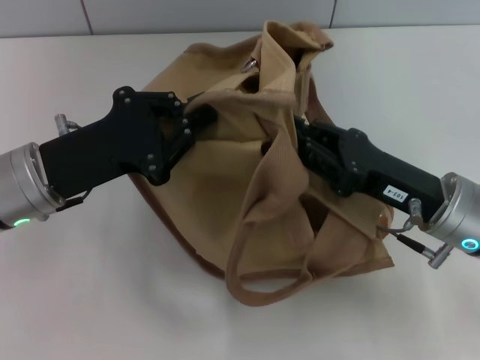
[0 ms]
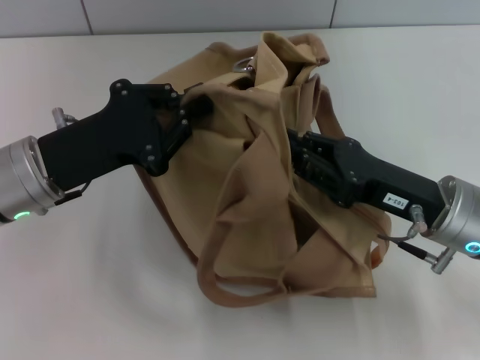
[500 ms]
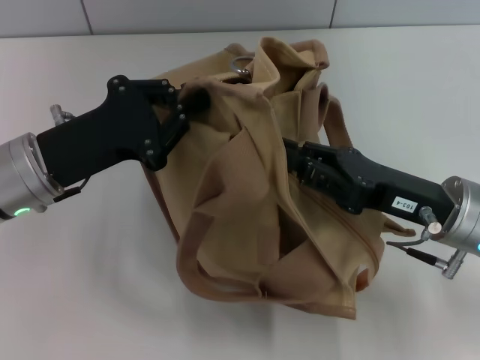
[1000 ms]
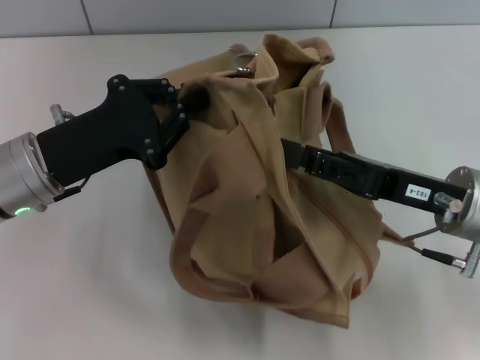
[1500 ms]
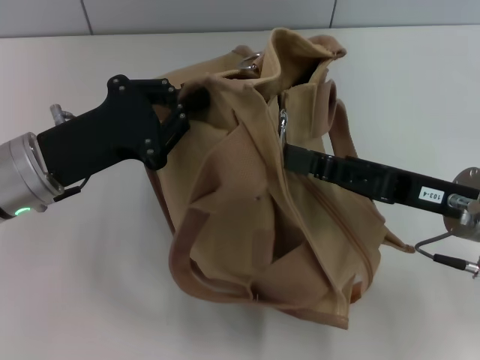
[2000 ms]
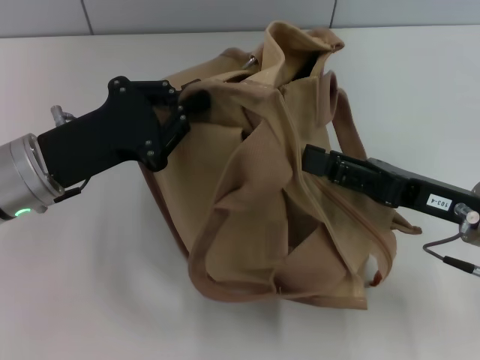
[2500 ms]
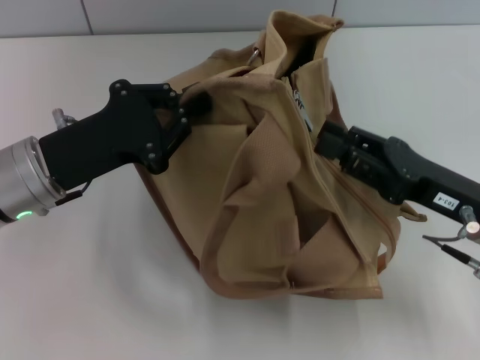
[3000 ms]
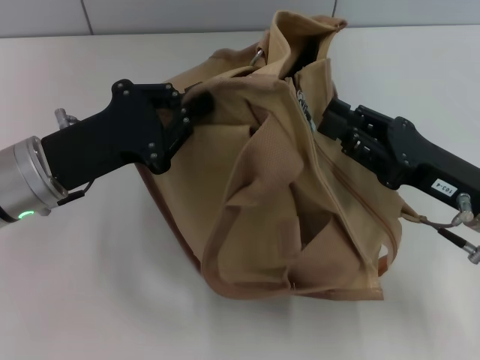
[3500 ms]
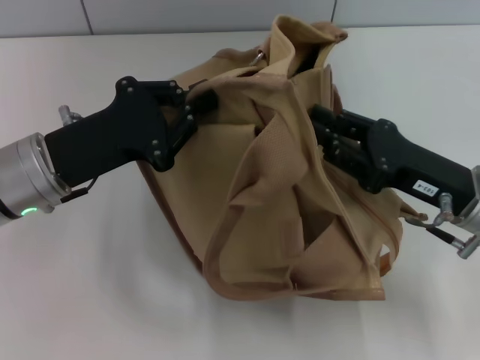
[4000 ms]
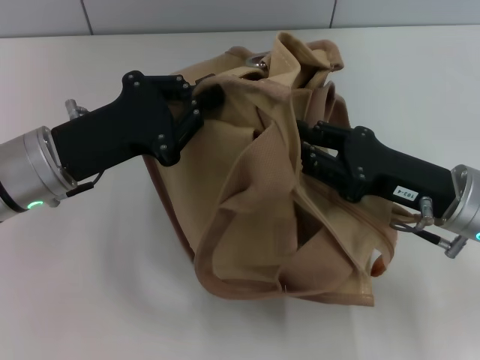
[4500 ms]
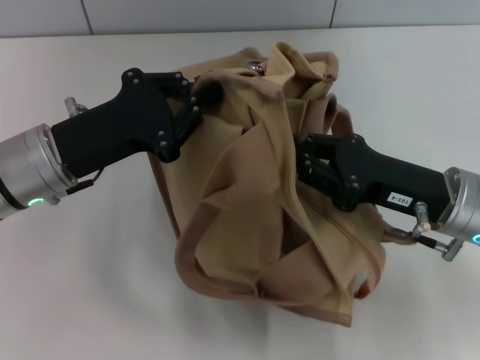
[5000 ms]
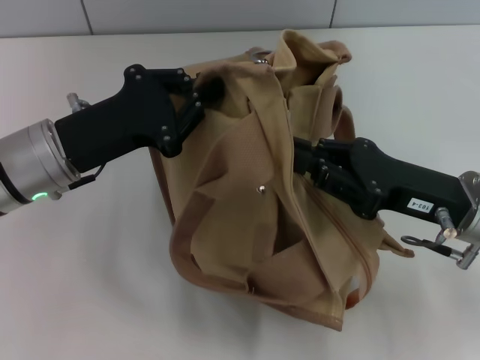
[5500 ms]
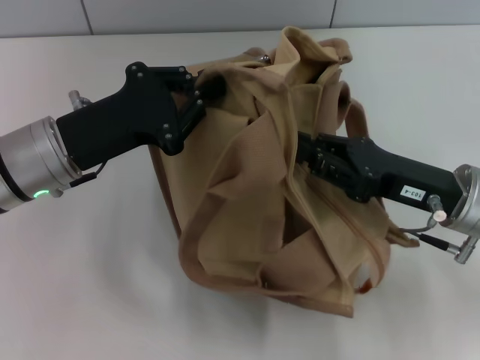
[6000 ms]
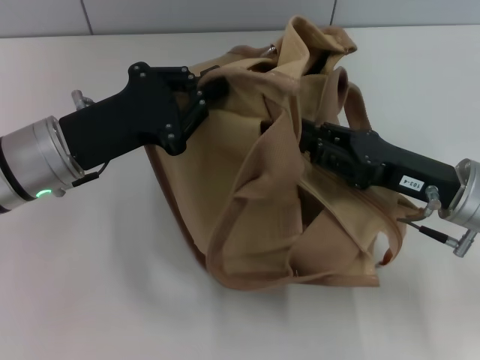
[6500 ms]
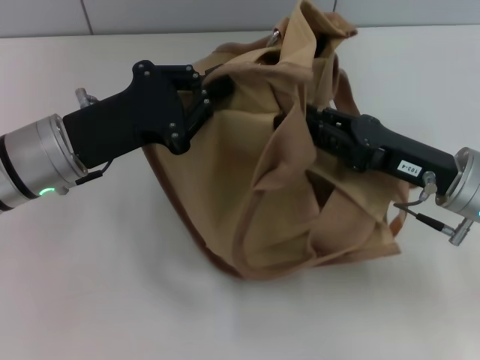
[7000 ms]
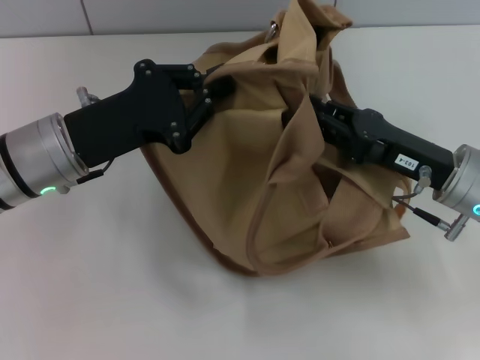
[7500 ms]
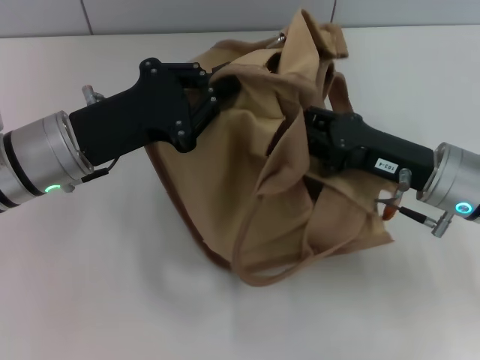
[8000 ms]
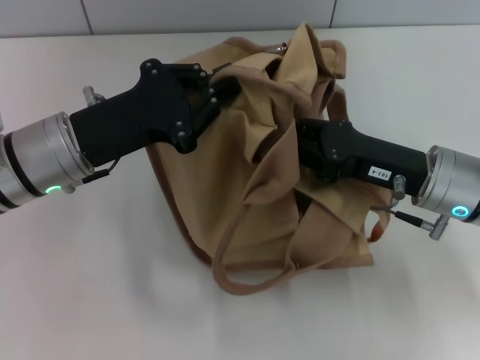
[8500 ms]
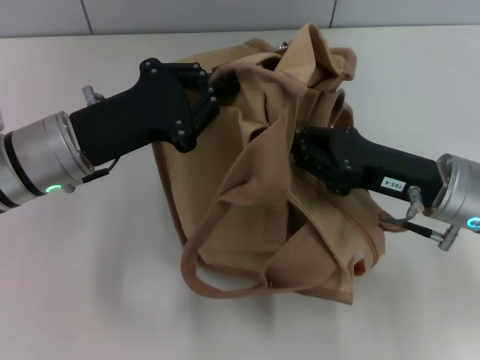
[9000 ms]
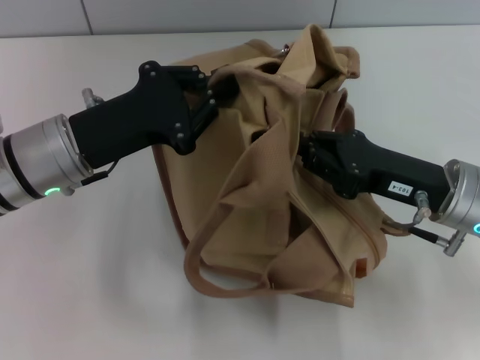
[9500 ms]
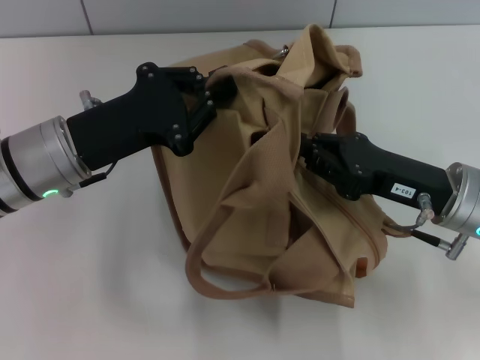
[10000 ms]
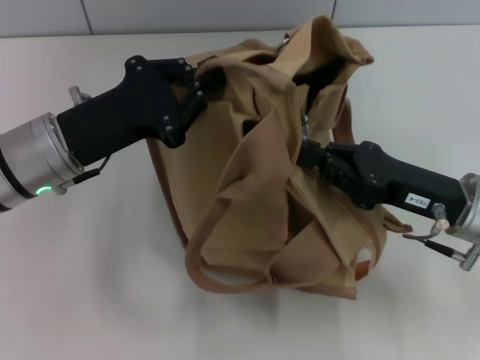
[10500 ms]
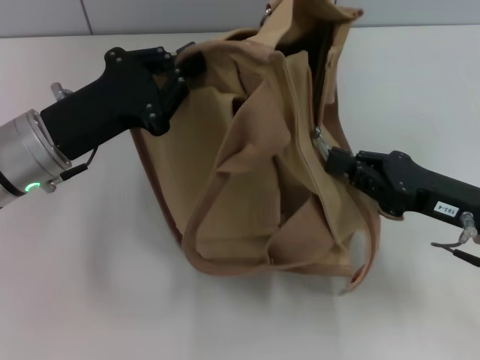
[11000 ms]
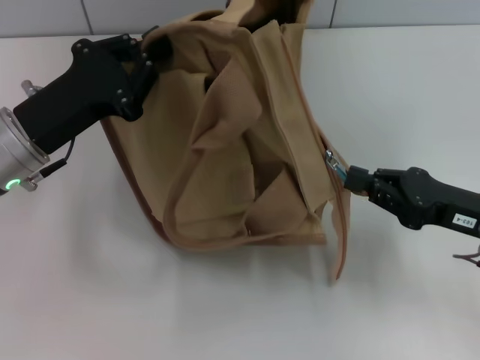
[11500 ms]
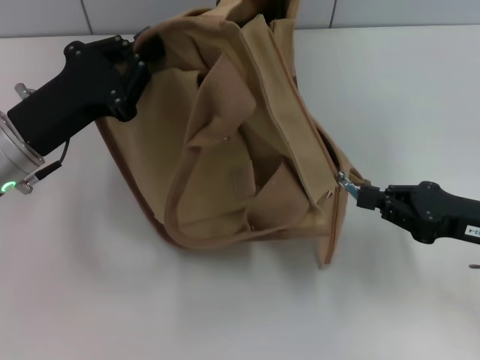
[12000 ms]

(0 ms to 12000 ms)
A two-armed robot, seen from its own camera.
8000 ms - 10000 ms: The right gripper closes up.
10000 ms - 12000 ms: The right gripper is displaced to the right by some 10 cm.

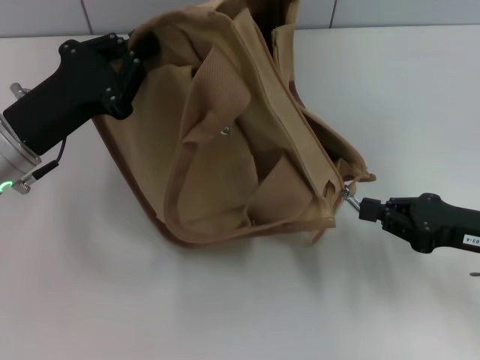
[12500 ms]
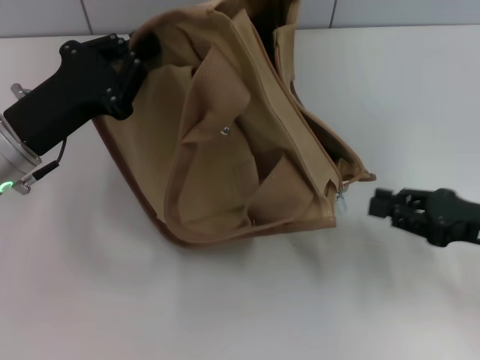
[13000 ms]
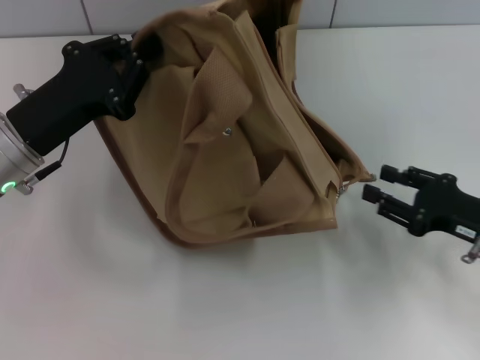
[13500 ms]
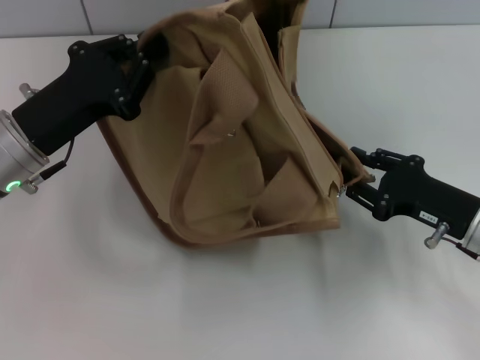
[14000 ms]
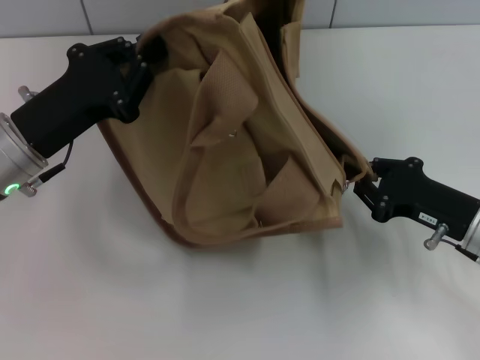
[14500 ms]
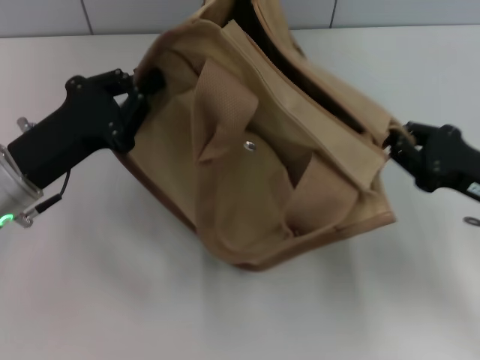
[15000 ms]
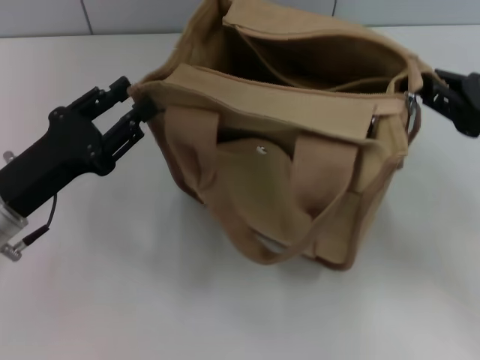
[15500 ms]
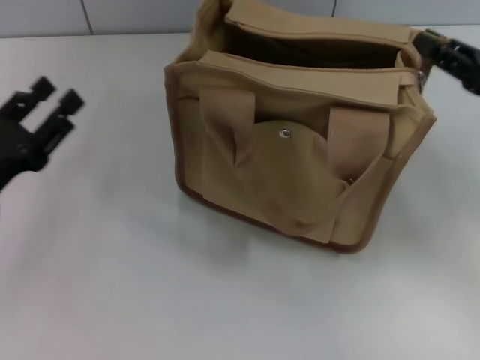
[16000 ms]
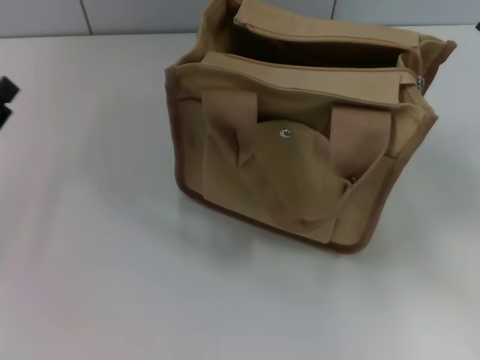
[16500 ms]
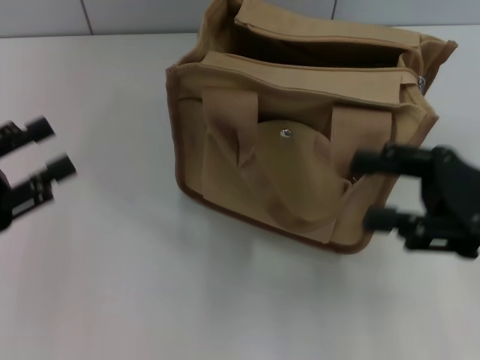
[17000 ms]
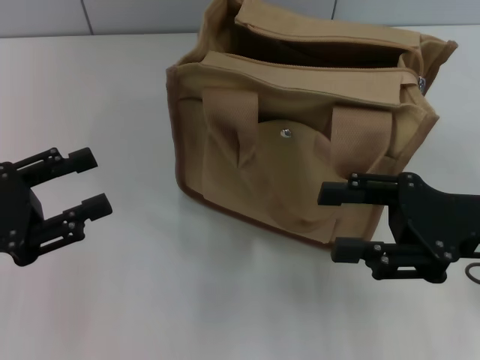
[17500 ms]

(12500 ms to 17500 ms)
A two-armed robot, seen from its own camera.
Step, 13000 ms - 15500 ms: Grab the bag with your left hand.
12500 ms - 15000 ms: The right gripper opens, then closes once more.
15000 ms - 17500 ms: The right gripper moves roughly 5 cm, and opens its fingers; the left gripper heads to the left and backward, covering approximately 10 cm, and opens its fingers.

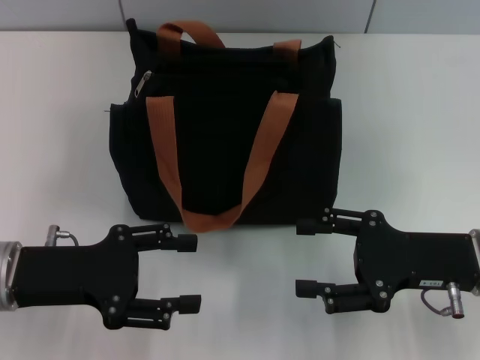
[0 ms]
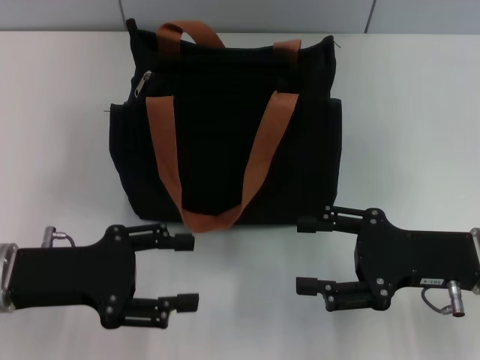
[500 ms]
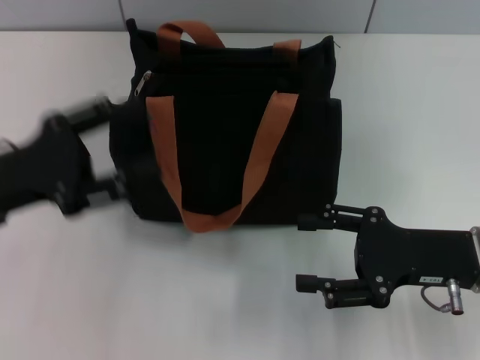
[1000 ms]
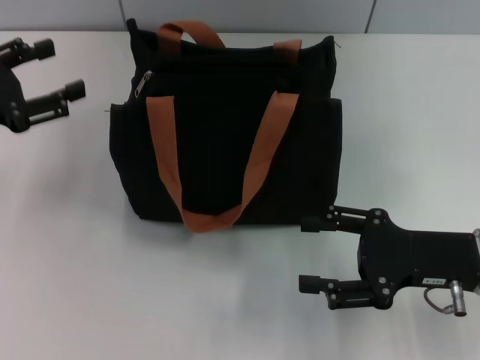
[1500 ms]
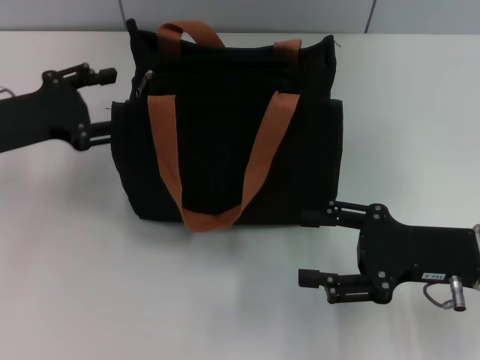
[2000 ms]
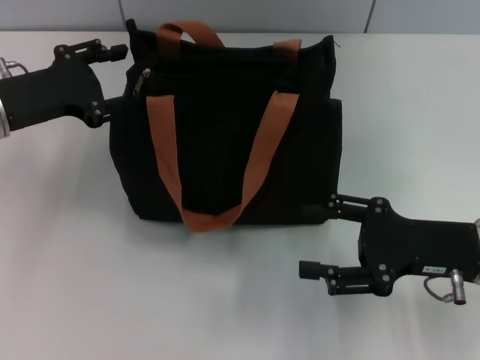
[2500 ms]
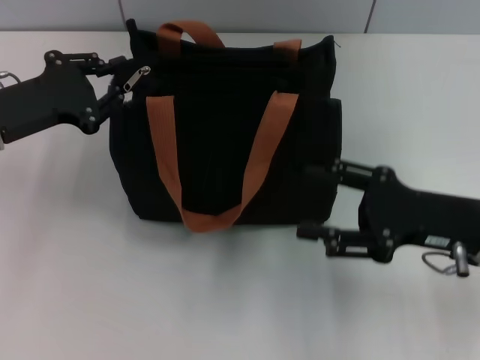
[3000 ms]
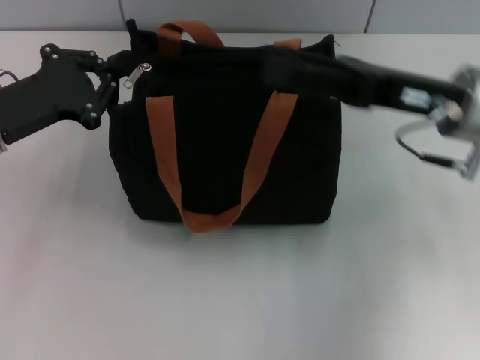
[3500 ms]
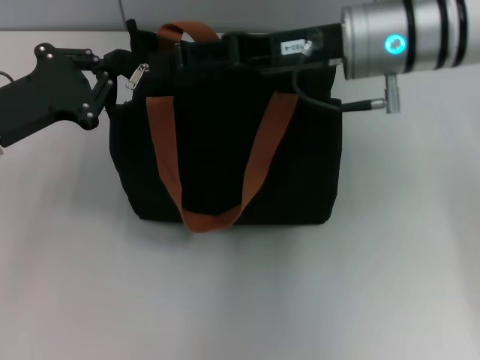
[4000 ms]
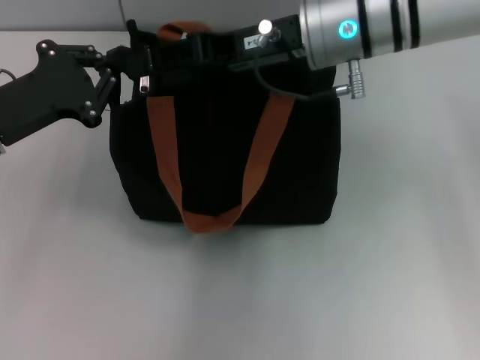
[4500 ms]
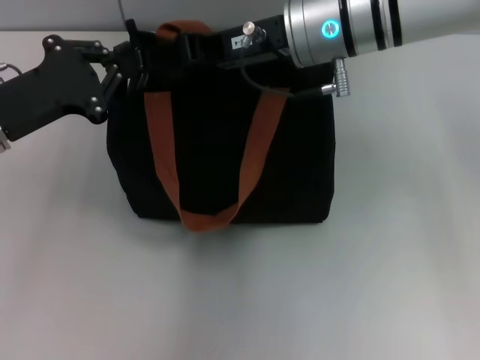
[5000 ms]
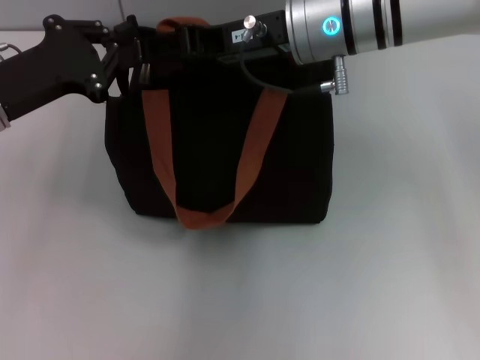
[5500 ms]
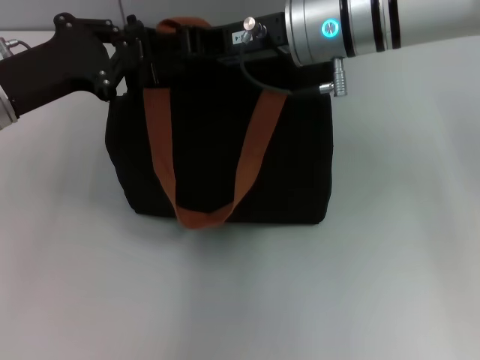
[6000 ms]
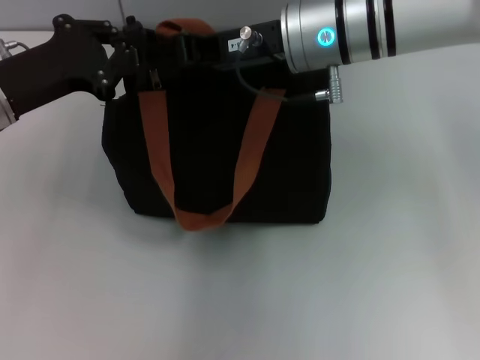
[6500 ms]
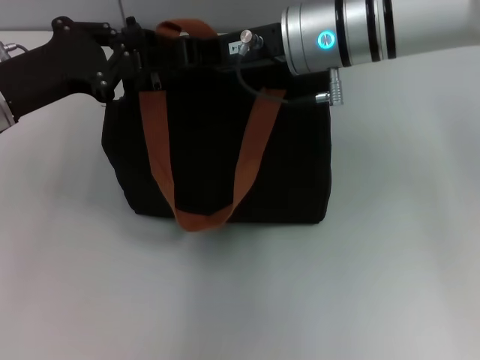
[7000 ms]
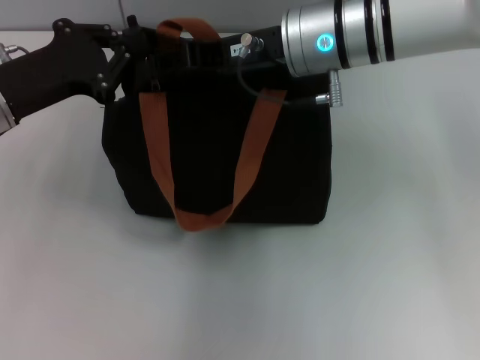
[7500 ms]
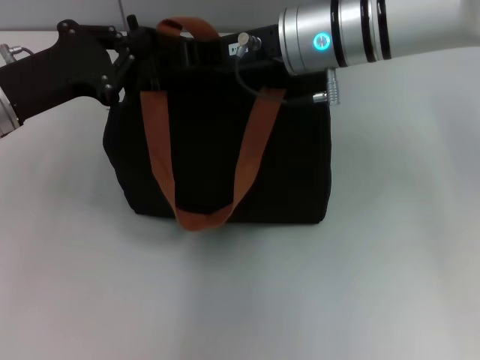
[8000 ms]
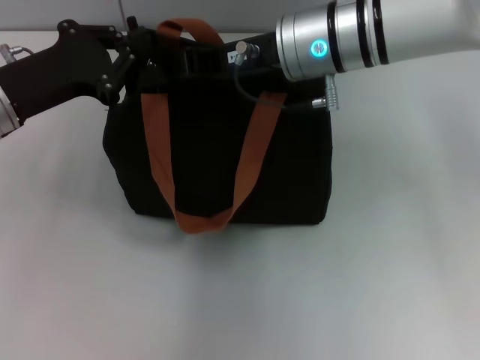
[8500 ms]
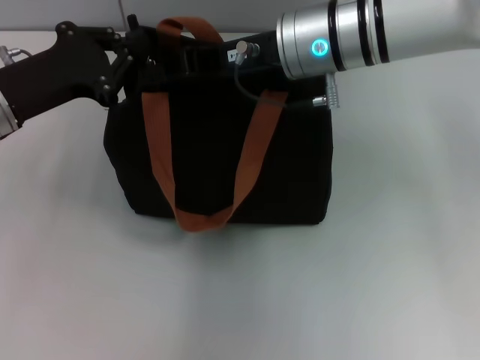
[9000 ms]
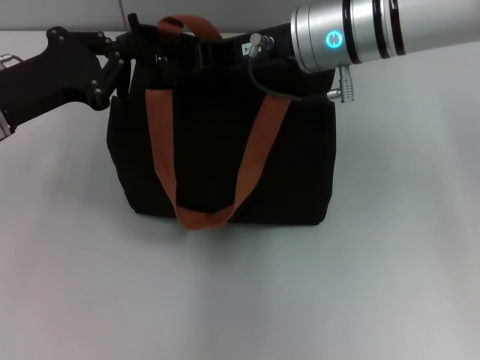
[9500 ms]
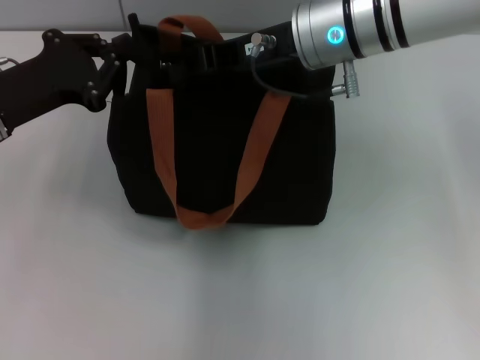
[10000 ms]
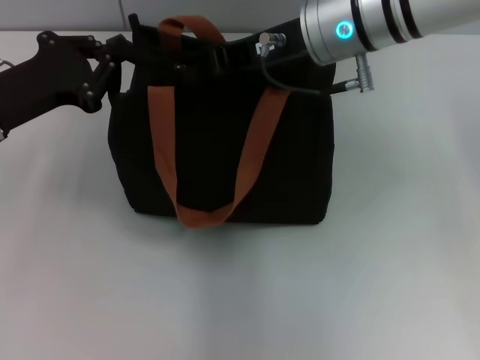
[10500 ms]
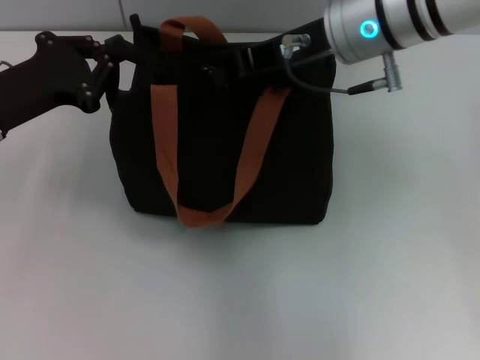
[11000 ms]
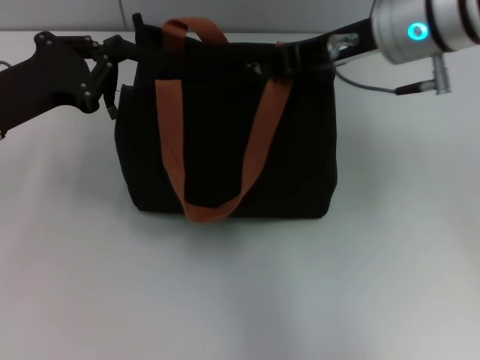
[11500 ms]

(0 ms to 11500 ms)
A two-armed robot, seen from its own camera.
0 ms - 2000 ms: The left gripper shifts about 10 cm forward.
2000 ms - 4000 ms: The left gripper closes. Meanwhile the right gripper travels forward, upward and to the left by approximately 20 cm.
4000 ms - 6000 ms: There are only small adjustments of the grippers.
6000 ms - 7500 ms: The right gripper closes up.
7500 ms - 9500 ms: The right gripper closes its fingers.
9500 ms - 11500 ms: The right gripper moves to the right, about 5 cm.
